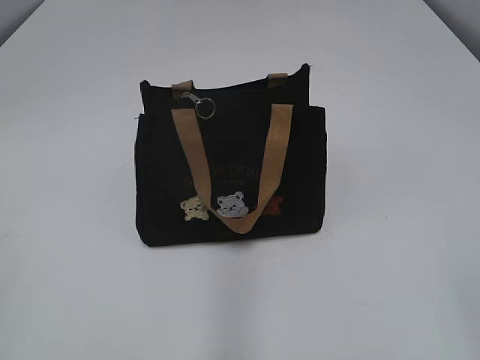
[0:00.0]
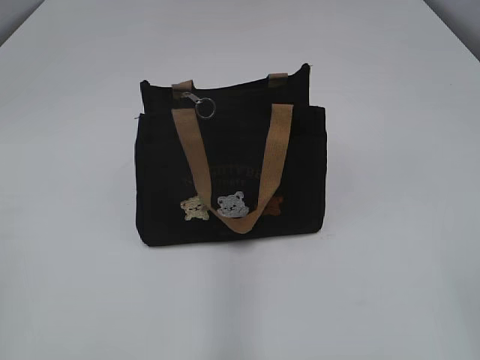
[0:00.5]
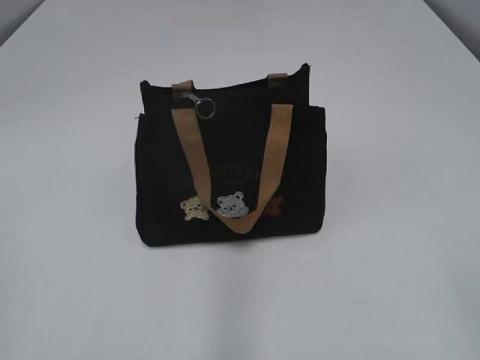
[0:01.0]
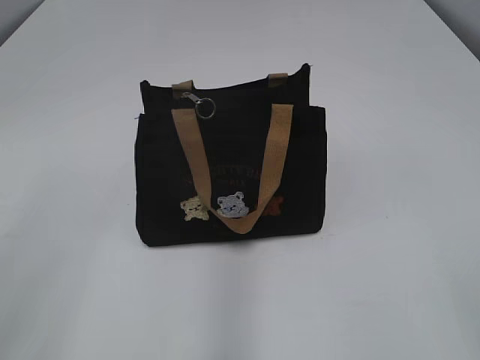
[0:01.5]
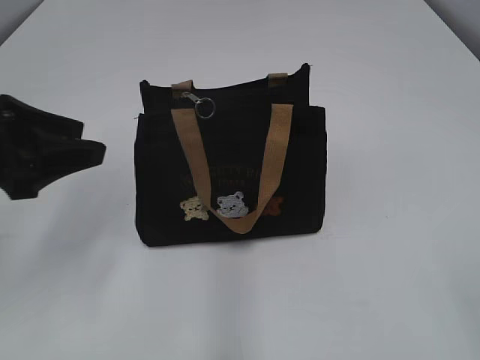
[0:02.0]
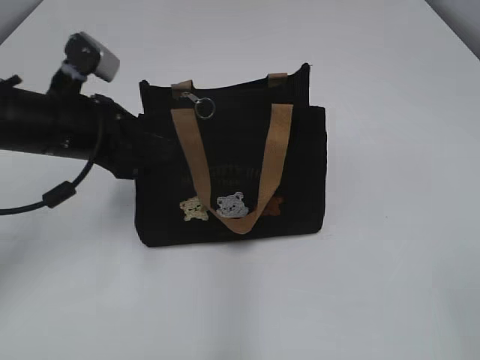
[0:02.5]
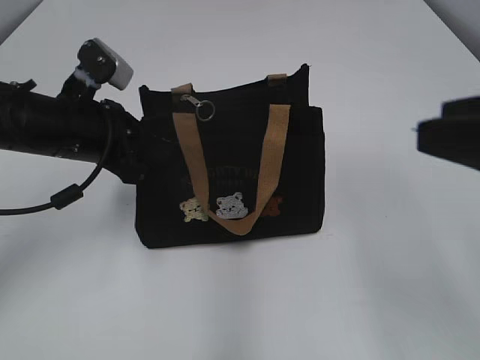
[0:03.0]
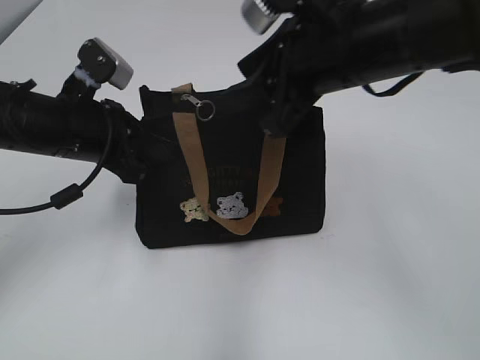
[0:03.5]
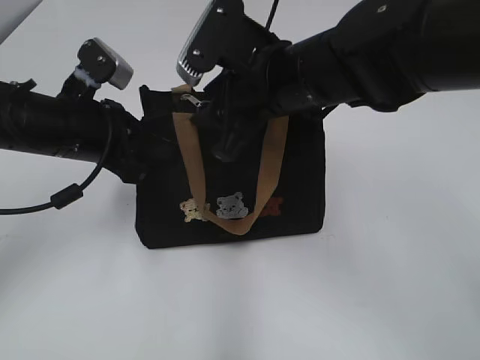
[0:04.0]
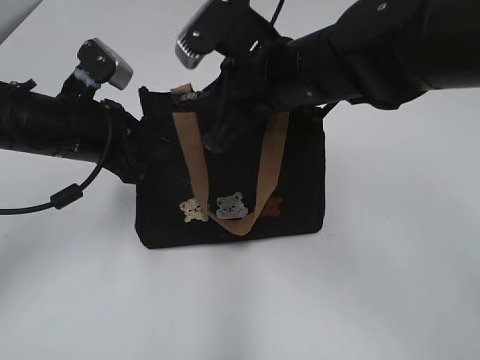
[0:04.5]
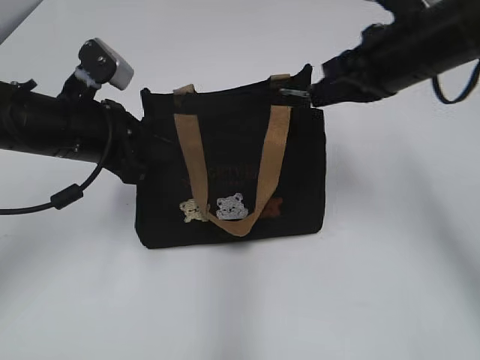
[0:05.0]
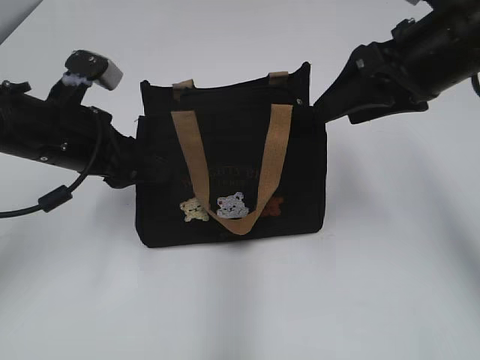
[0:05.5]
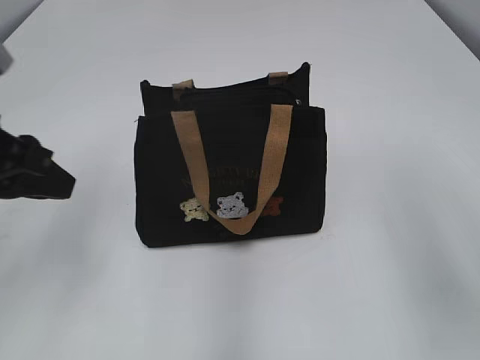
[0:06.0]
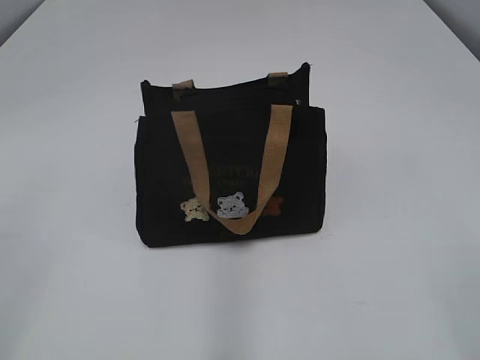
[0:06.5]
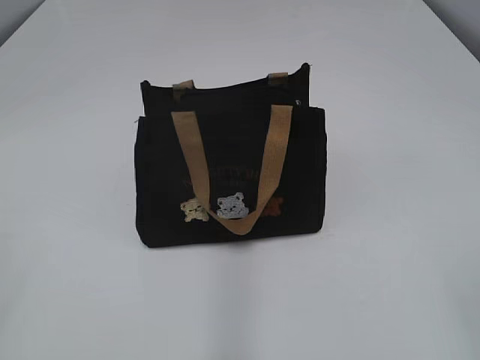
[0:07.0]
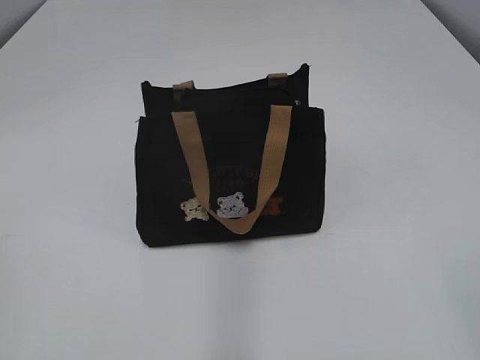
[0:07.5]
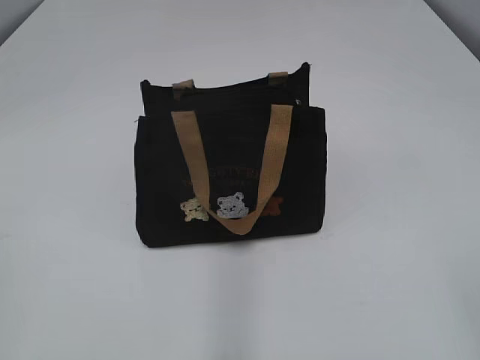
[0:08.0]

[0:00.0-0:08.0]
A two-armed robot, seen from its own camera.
Step, 0:00.0 to 0:05.0: Pull open the zipper with your right hand.
0:02.0 to 0:04.0: The right gripper heads forward and to the left, covering roughly 40 cm; the left gripper is displaced forward, to the right and downward by about 10 cm, and closes.
0:04.0 to 0:06.0: The right gripper heads to the right and backward, covering approximately 25 cm, and closes, then opens again; the left gripper moves backward and upward, roughly 10 cm, and opens its fingers.
0:06.0 to 0:08.0: The left gripper heads backward, covering some 25 cm.

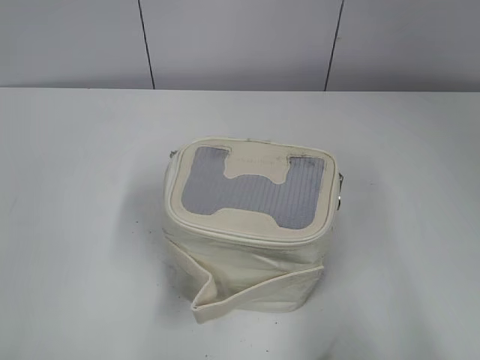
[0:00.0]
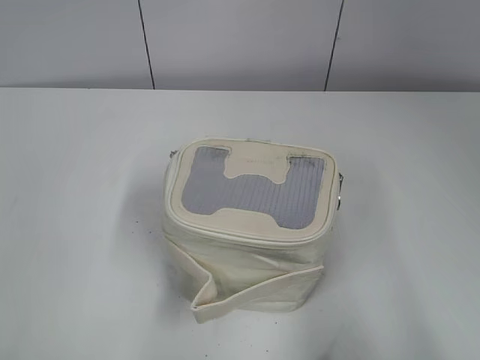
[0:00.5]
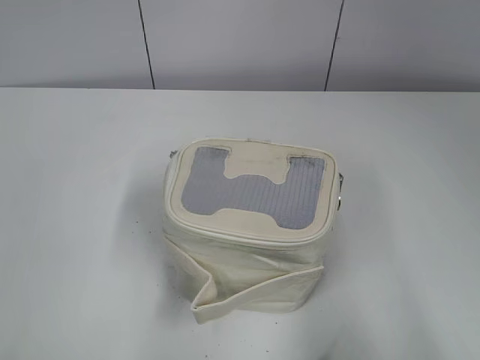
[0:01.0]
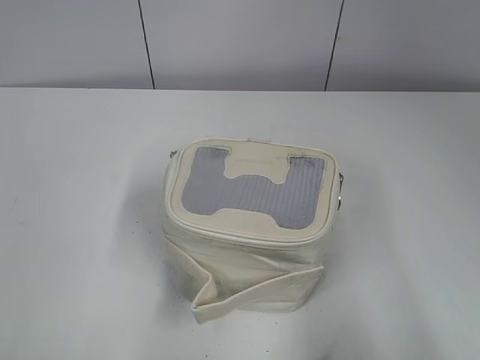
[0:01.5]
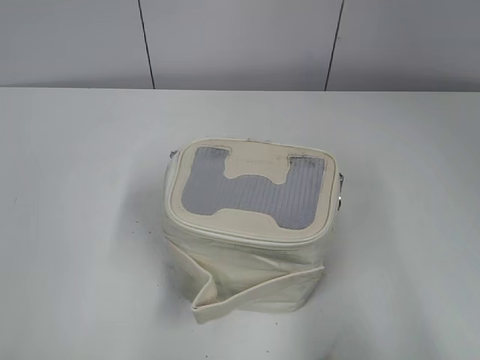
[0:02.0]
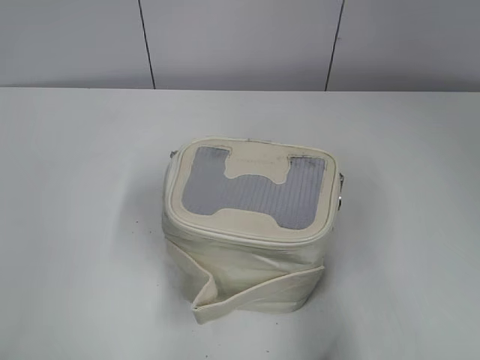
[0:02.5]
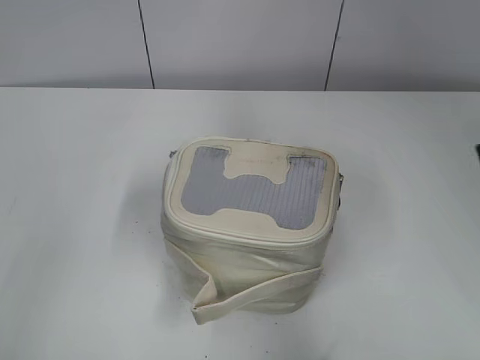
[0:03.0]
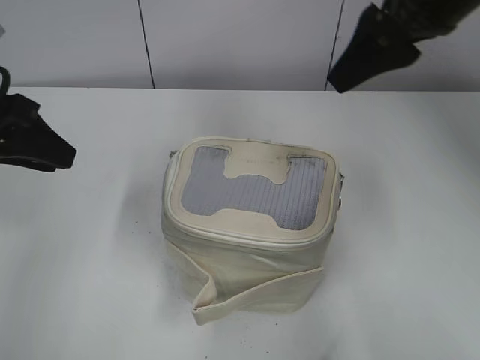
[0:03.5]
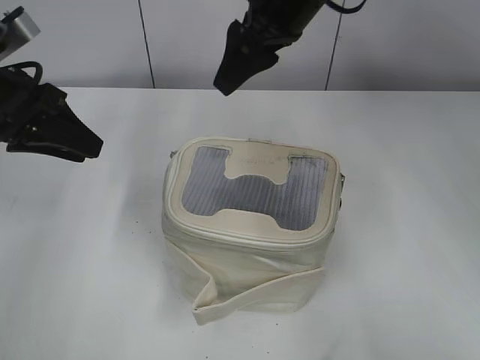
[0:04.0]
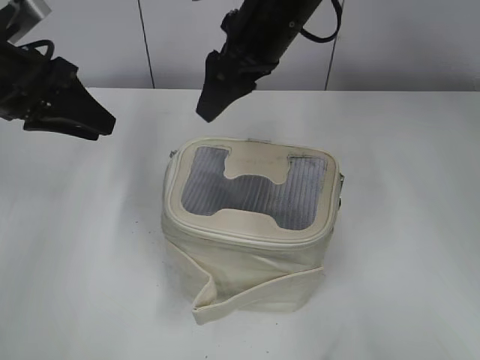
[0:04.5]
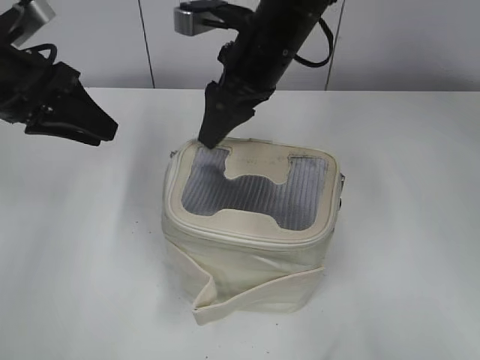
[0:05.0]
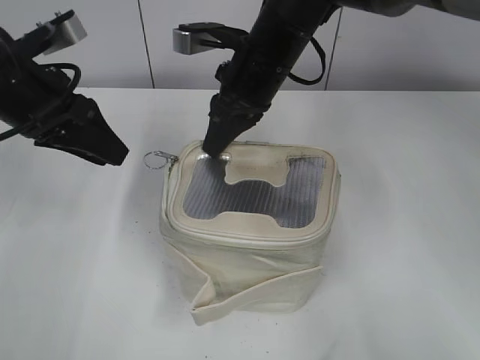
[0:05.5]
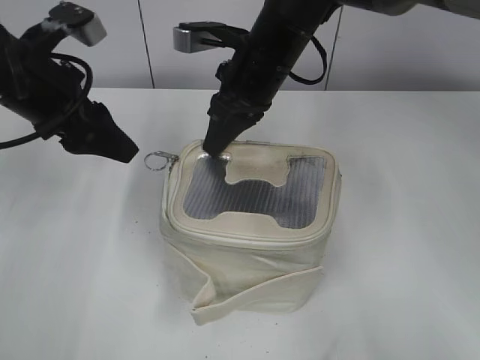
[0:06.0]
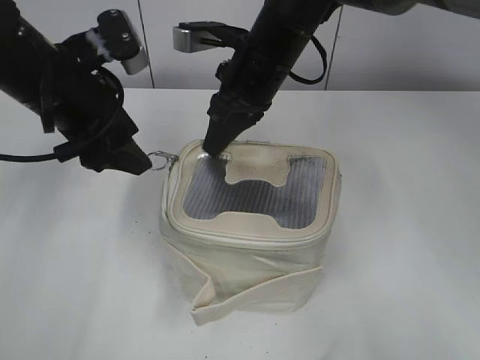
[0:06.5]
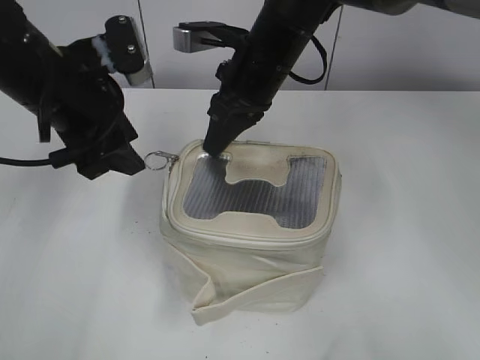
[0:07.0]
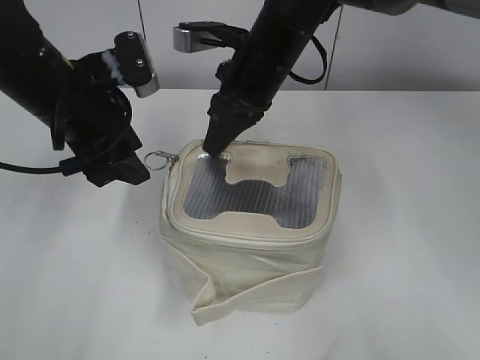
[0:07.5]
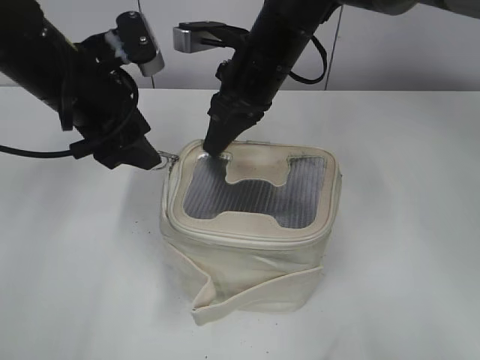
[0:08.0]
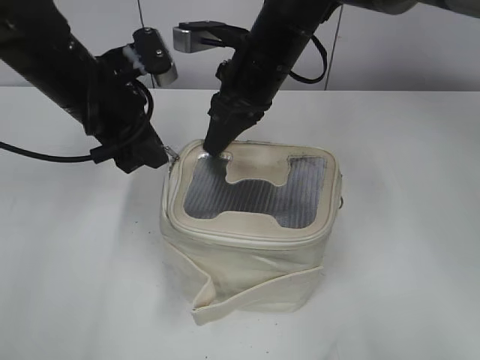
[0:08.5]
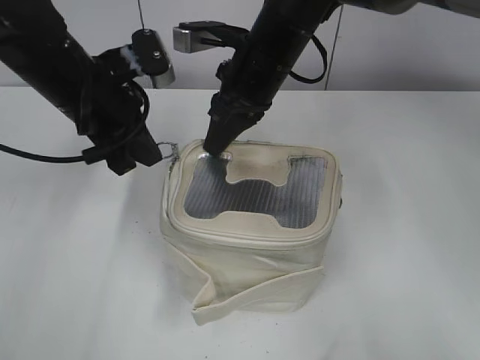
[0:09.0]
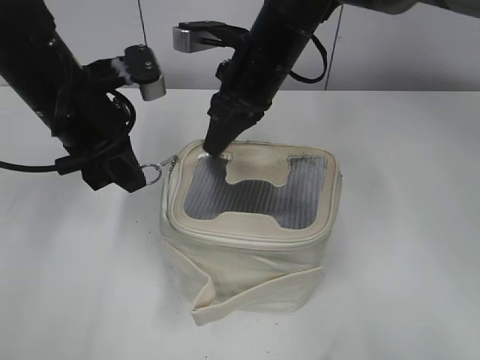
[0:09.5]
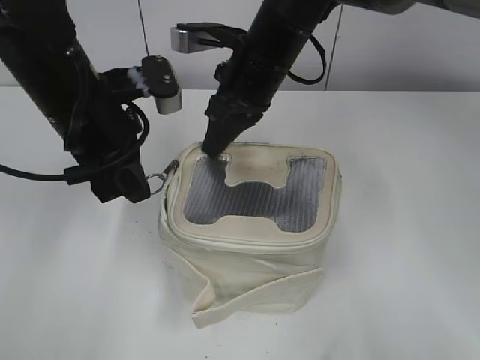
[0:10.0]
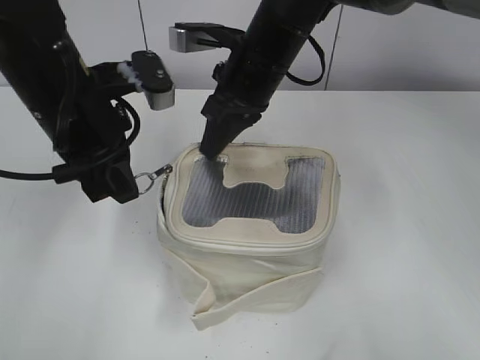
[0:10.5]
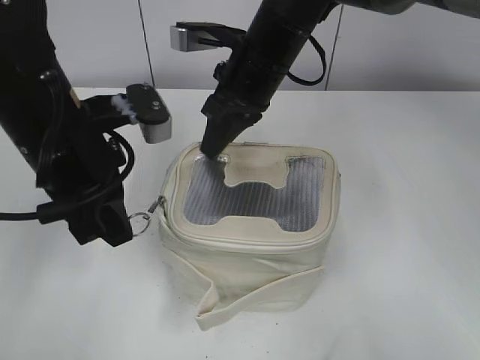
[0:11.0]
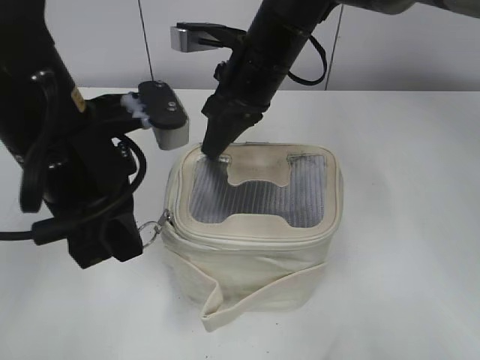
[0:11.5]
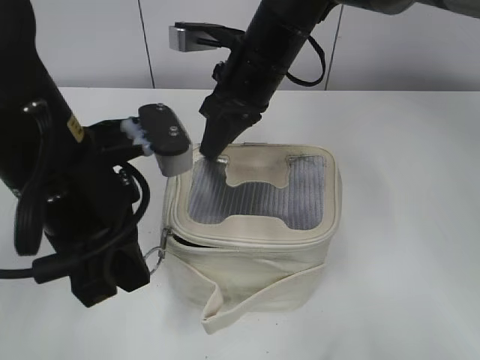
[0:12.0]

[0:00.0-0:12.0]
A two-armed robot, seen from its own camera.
0:02.0 to 0:04.0: The right gripper moves forward and to the left, about 50 cm, while the left gripper moves forward, roughly 30 cm.
0:04.0 to 0:06.0: The right gripper travels downward by roughly 5 cm, and closes, while the left gripper opens up.
0:08.0 to 0:10.0: The left gripper closes its fingers.
0:10.0 to 0:12.0: The left gripper travels backward by about 10 cm.

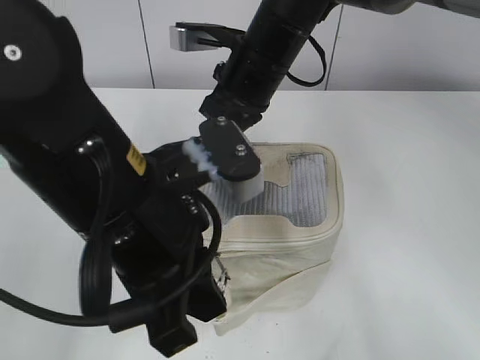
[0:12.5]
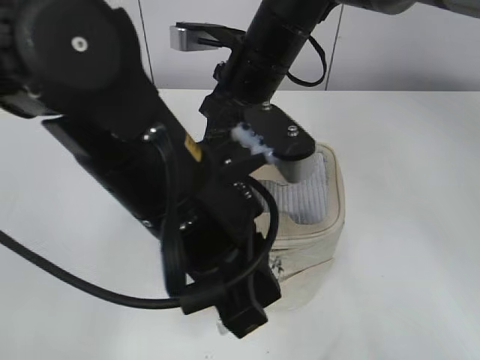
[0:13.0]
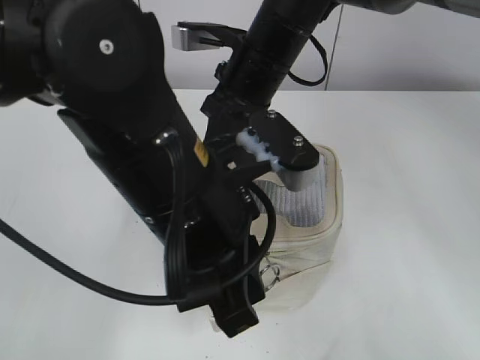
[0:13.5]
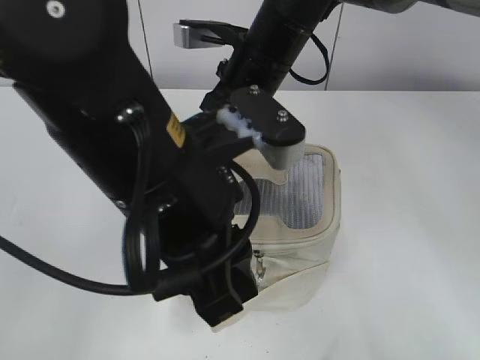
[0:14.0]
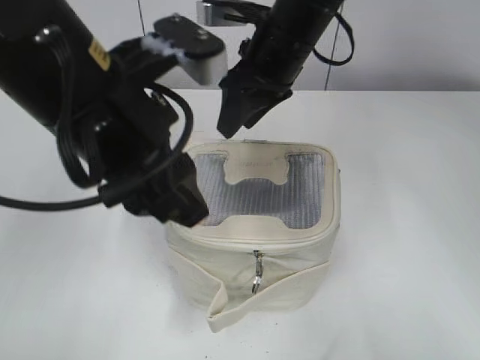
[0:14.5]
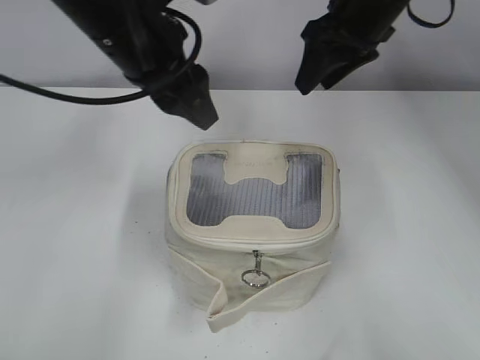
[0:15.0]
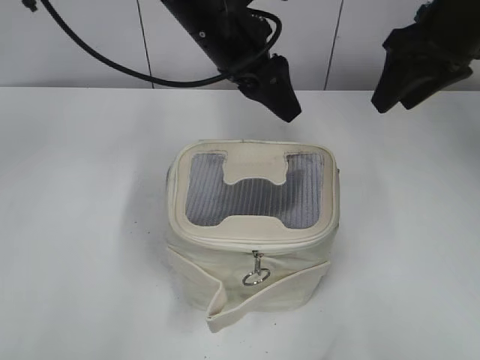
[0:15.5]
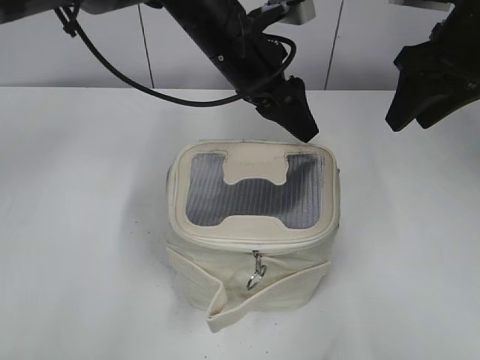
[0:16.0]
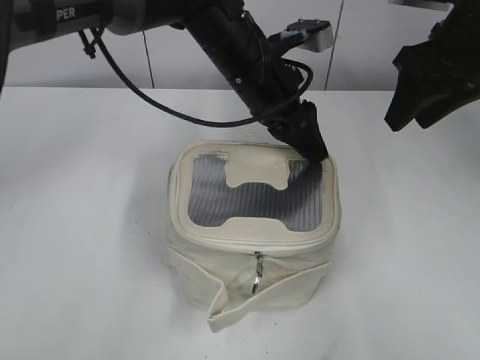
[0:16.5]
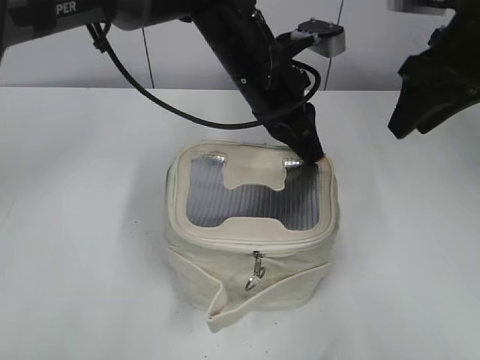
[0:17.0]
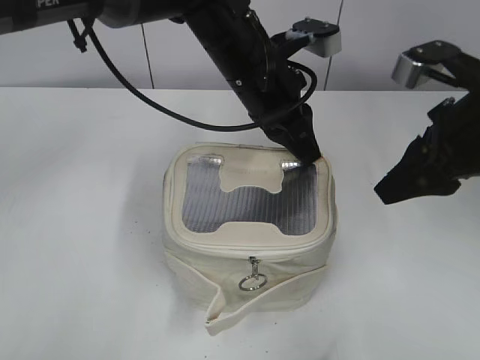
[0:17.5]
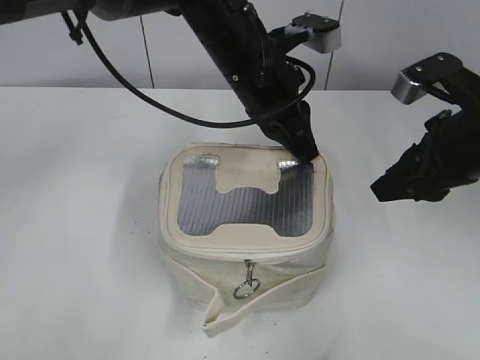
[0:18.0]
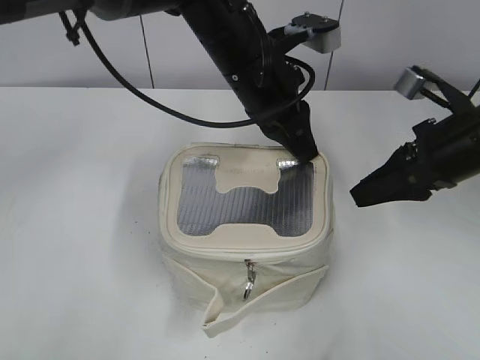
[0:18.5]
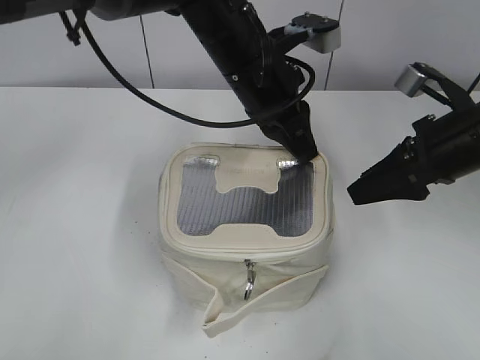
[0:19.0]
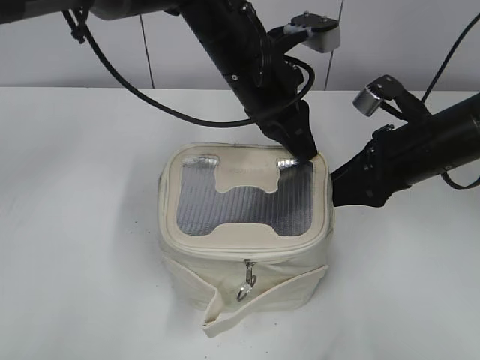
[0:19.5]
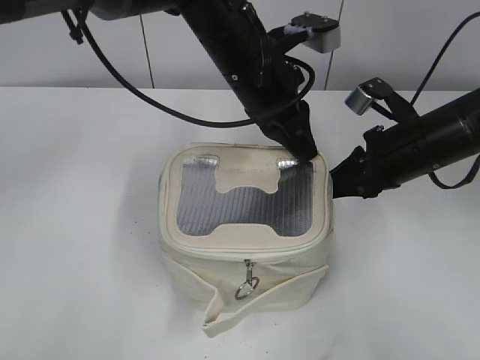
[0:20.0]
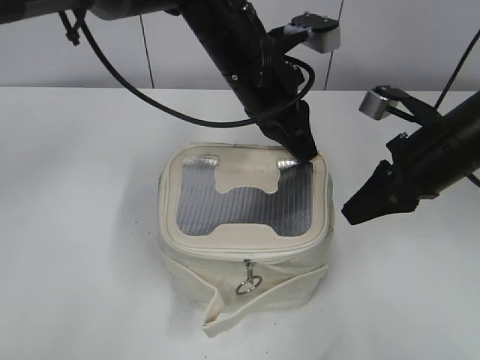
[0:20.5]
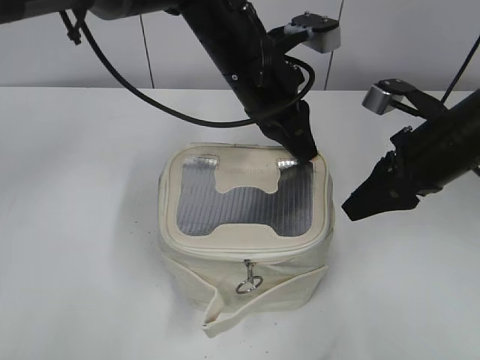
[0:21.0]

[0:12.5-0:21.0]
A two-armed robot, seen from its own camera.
0:12.5 to 0:14.5: The right gripper opens up, while the left gripper is displaced forward and upward by about 5 cm, and opens up.
0:14.5 to 0:16.5: The left gripper travels forward, to the right and downward by approximately 20 cm; the right gripper moves to the right, about 15 cm.
0:16.5 to 0:19.0: The right gripper is displaced downward and backward by some 10 cm, while the left gripper closes up.
0:19.0 to 0:21.0: The right gripper closes and opens again.
